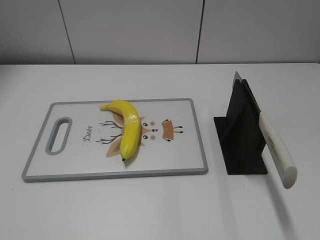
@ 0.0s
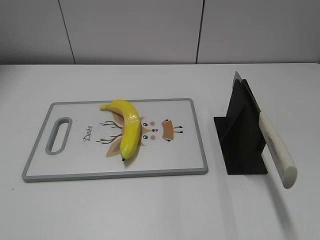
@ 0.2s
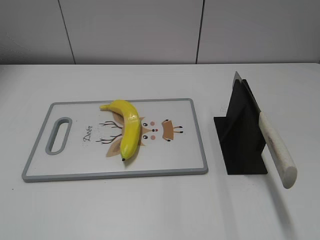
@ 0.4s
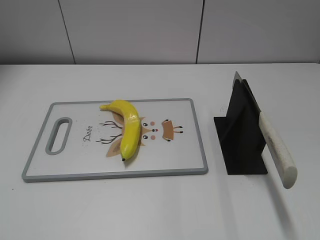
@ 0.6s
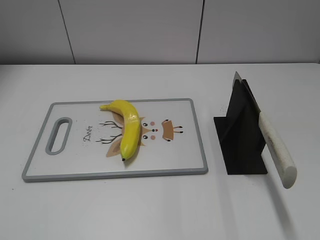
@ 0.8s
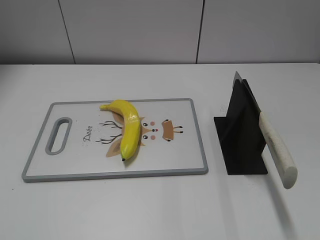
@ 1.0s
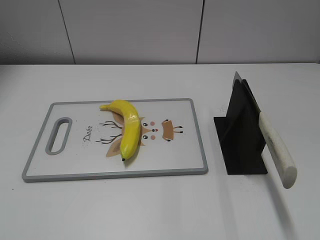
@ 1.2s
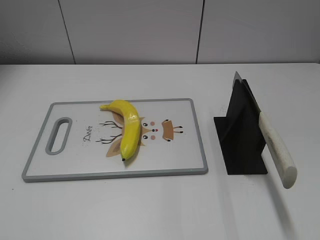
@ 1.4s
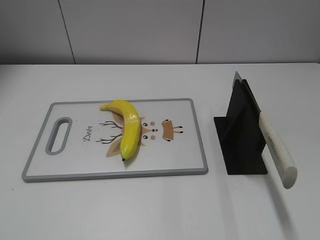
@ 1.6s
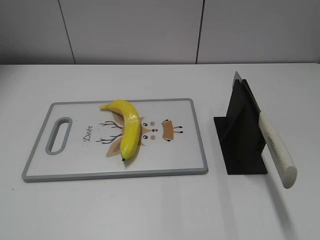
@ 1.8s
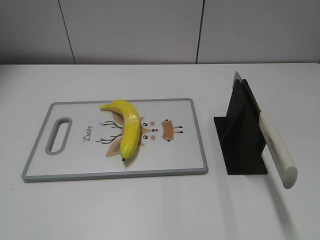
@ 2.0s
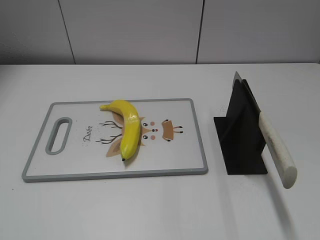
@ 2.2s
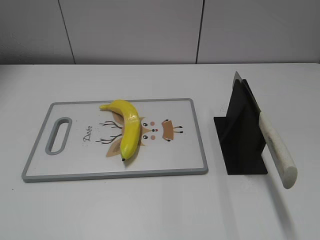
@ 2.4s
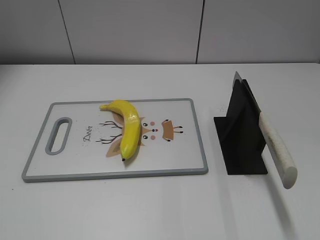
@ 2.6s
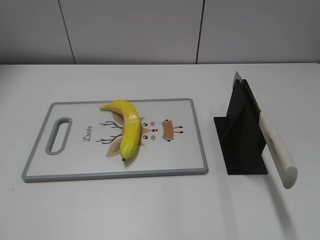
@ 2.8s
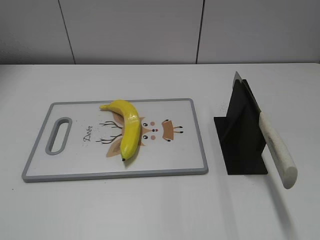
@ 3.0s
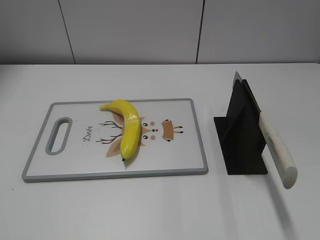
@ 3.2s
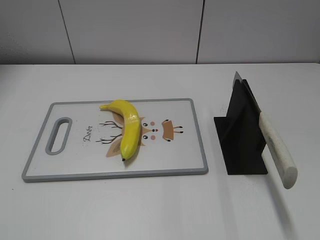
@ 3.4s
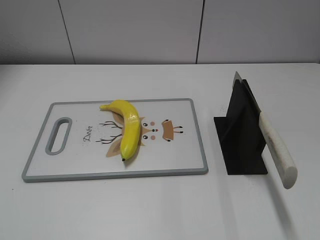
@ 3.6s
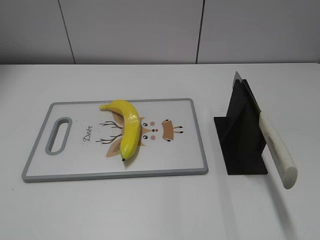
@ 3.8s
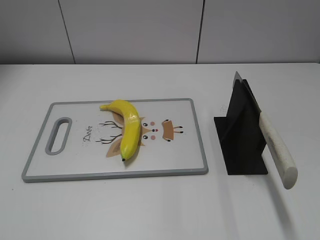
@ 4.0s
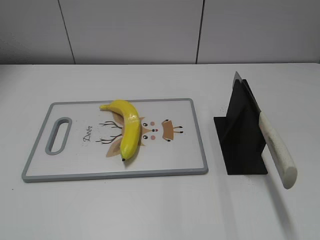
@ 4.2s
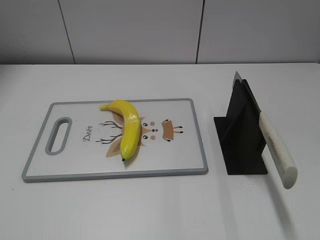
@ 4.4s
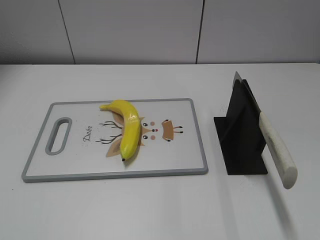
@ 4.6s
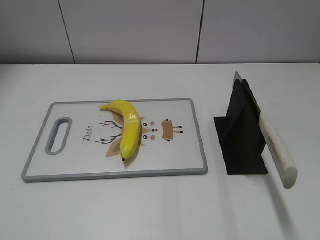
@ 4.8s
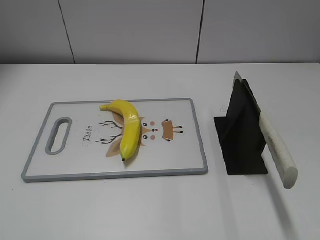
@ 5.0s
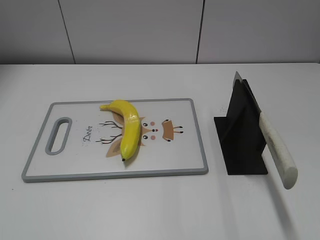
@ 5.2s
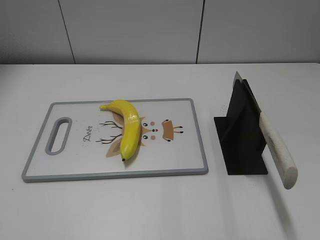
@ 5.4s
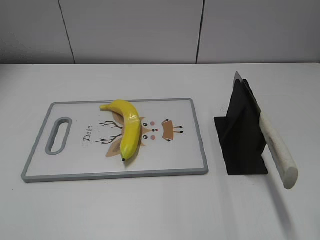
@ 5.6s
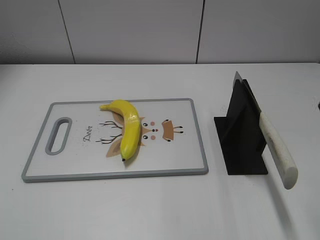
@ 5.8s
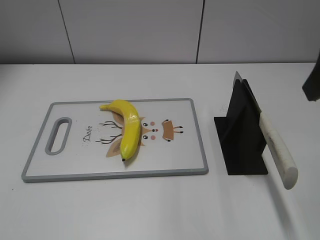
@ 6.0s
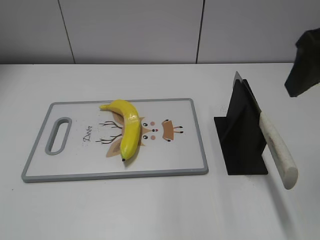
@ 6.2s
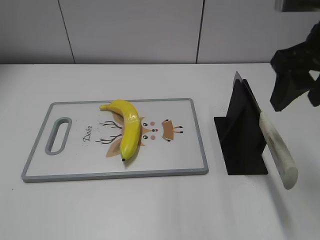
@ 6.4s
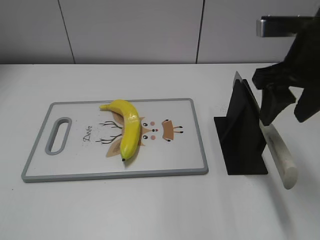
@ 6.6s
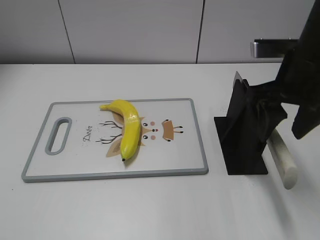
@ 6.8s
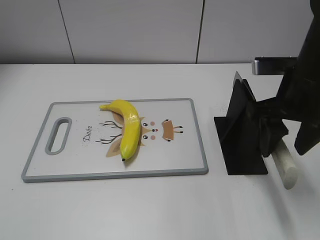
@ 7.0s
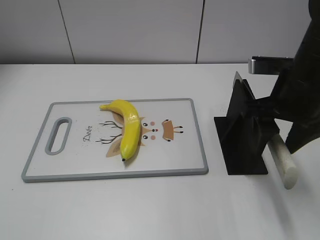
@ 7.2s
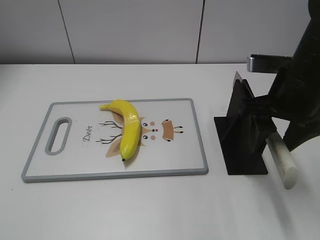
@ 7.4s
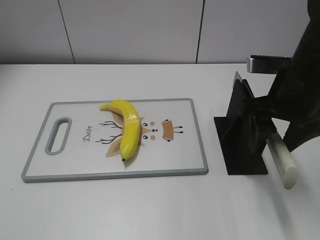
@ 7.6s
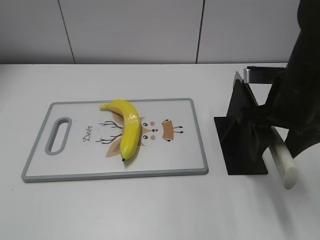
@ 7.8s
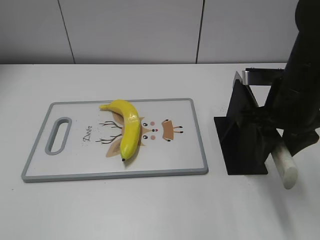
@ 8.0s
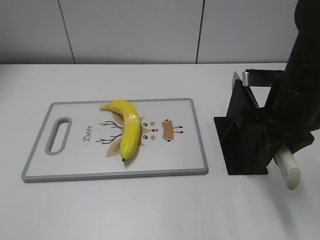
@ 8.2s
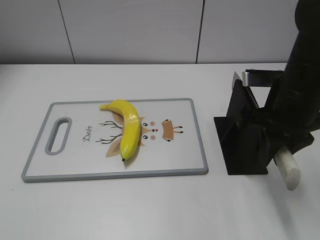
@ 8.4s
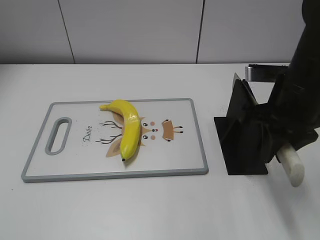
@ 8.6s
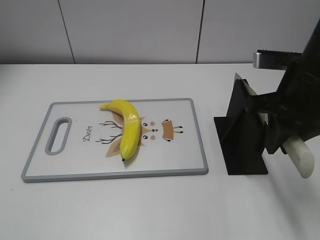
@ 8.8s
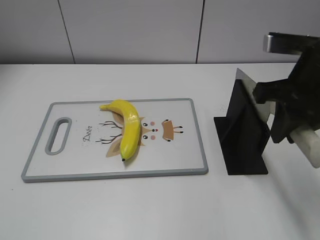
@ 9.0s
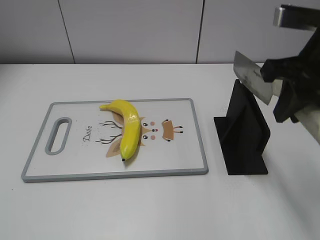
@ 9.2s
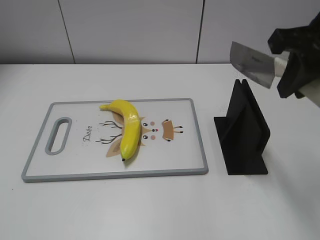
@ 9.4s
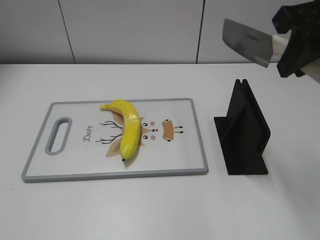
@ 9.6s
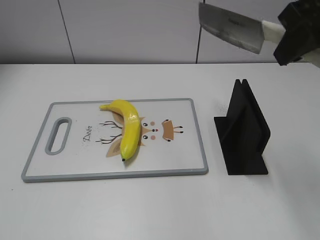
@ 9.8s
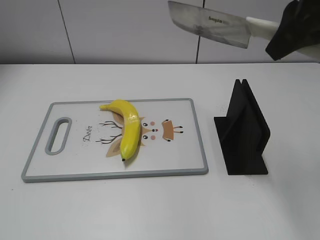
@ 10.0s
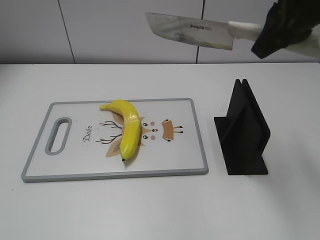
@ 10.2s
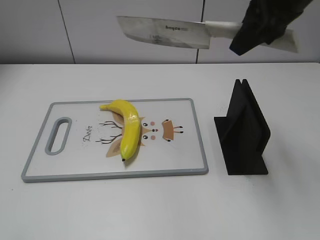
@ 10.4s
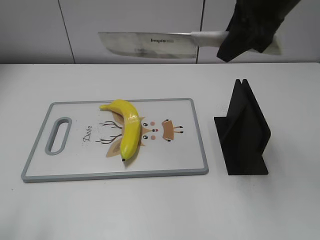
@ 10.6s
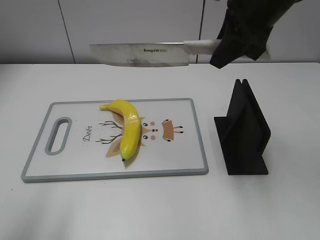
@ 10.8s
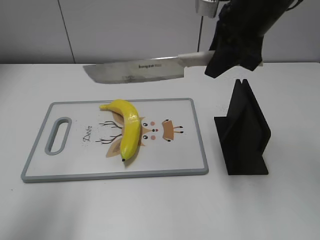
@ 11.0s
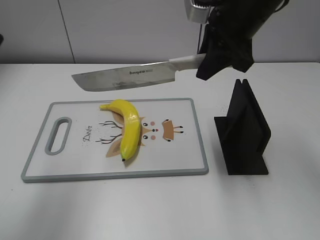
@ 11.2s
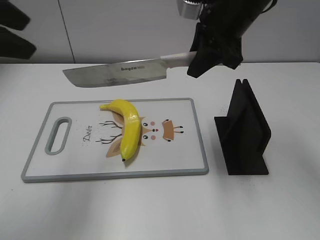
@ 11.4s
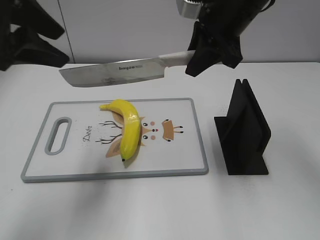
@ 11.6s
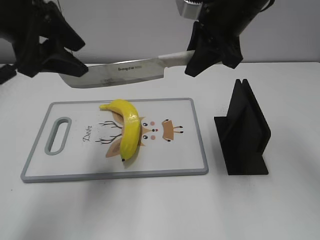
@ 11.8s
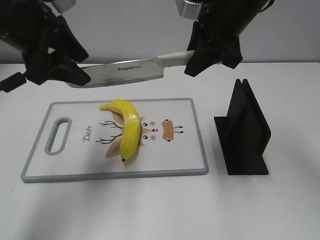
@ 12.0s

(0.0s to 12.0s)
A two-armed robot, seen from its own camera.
Task of the whole recording: cut plastic banana.
Step, 0.0s - 10.4s: Grab the knife handle with your right hand.
4.4s - 6.0s: The right gripper heads forward and to the left, covering about 20 cm.
6.0s - 7.6s: The right gripper travels downward and forward by approximately 15 cm.
7.6s - 9.0s: The right gripper ends up about 5 cm from where it was, and closes up.
9.0s - 10.4s: The right gripper heads upward and forward, covering roughly 10 cm. Meanwhile the left gripper shifts approximately 5 cm forward.
10.4s - 12.0s: The left gripper travels forward and to the right by approximately 30 cm. The right gripper heads downward, covering some 5 cm.

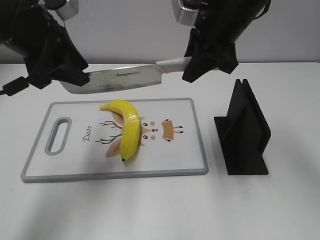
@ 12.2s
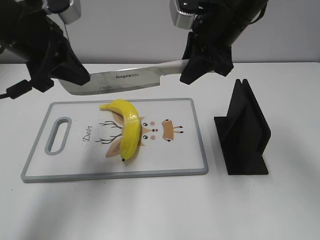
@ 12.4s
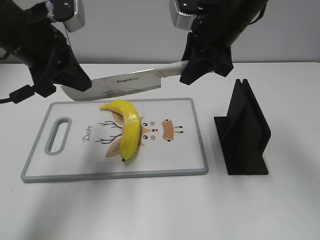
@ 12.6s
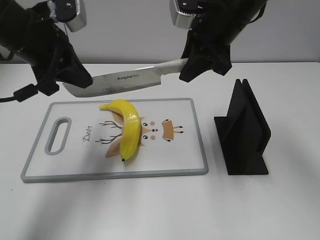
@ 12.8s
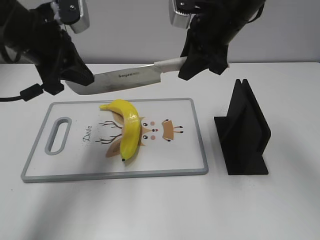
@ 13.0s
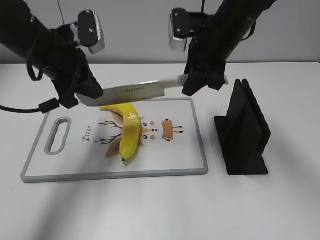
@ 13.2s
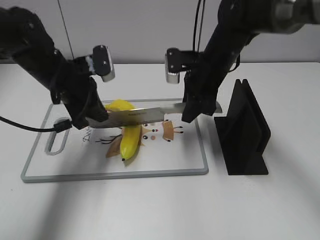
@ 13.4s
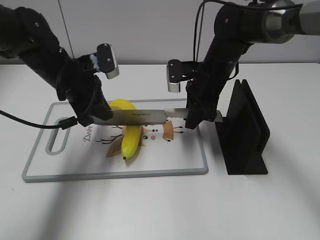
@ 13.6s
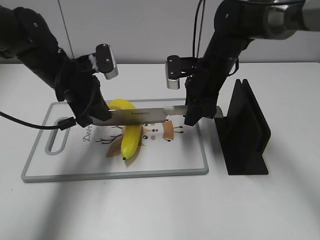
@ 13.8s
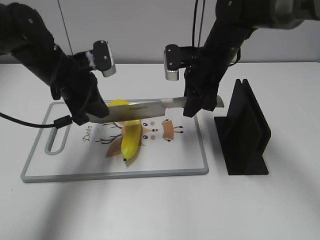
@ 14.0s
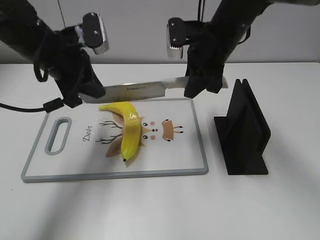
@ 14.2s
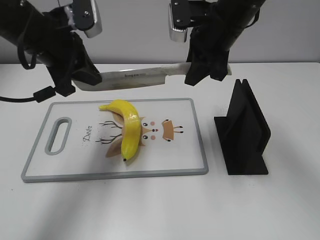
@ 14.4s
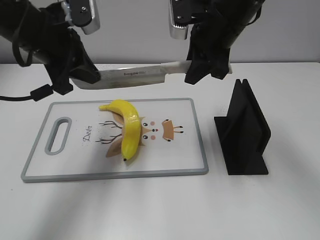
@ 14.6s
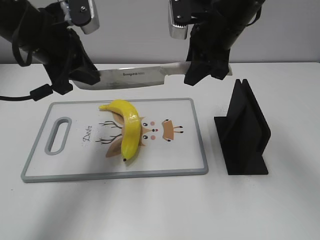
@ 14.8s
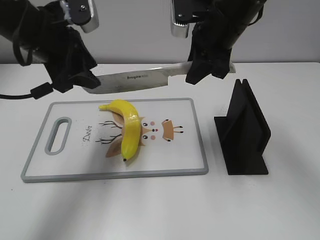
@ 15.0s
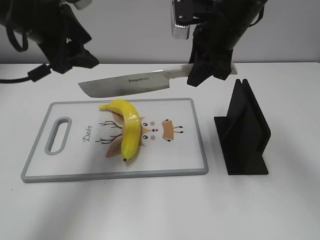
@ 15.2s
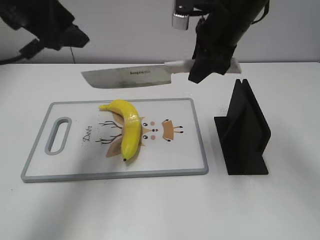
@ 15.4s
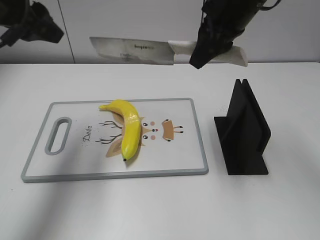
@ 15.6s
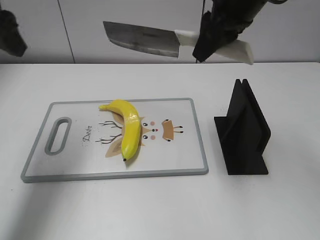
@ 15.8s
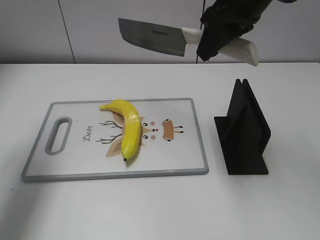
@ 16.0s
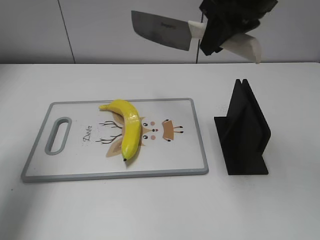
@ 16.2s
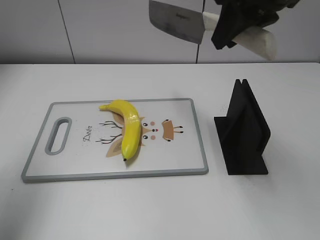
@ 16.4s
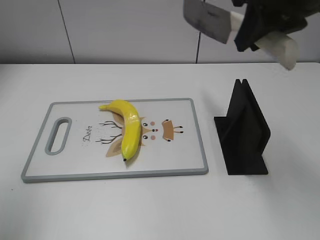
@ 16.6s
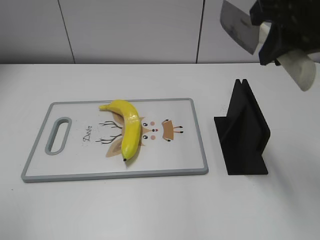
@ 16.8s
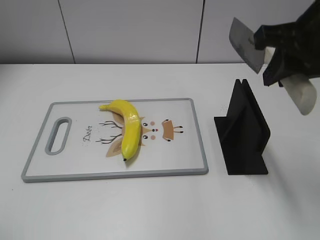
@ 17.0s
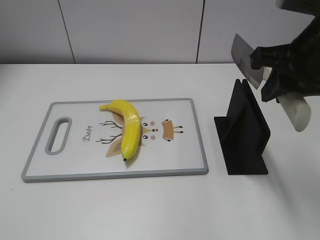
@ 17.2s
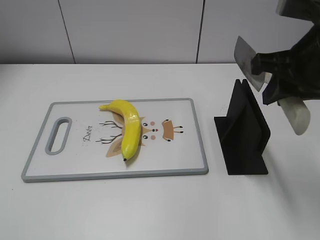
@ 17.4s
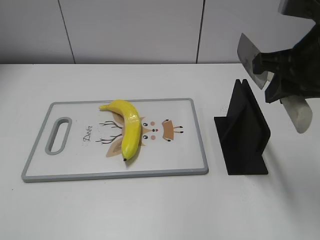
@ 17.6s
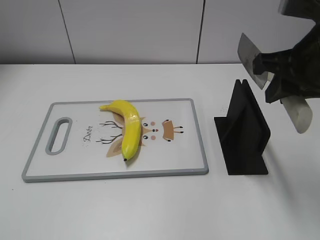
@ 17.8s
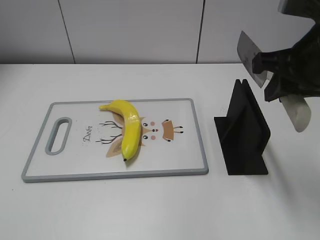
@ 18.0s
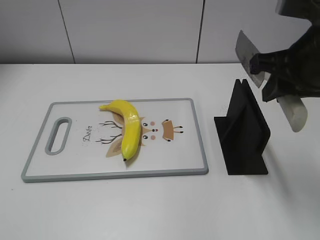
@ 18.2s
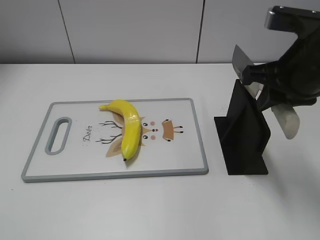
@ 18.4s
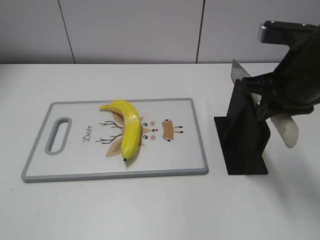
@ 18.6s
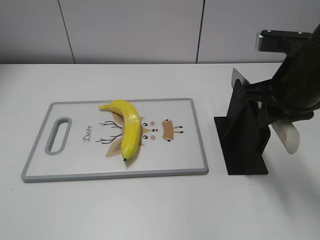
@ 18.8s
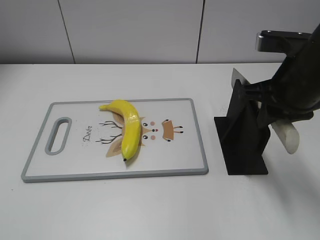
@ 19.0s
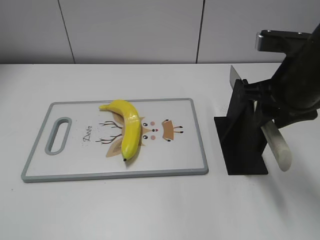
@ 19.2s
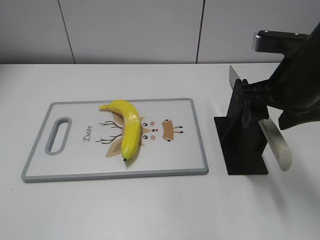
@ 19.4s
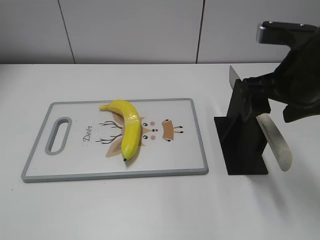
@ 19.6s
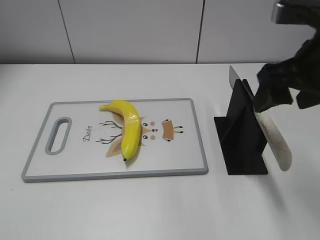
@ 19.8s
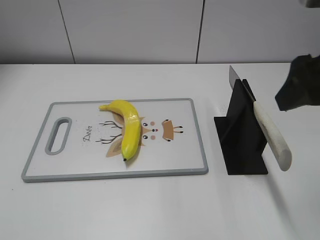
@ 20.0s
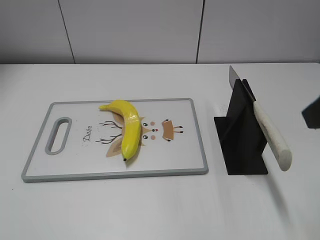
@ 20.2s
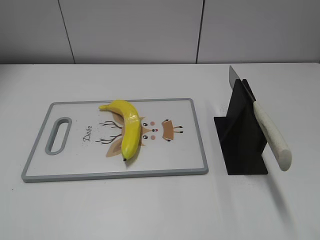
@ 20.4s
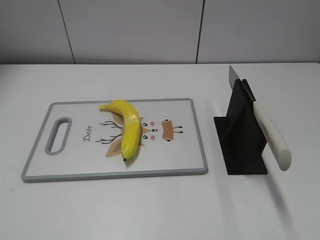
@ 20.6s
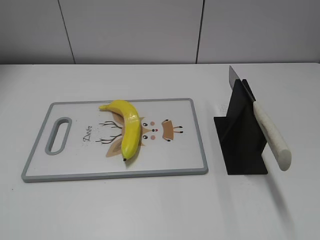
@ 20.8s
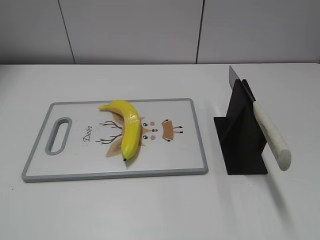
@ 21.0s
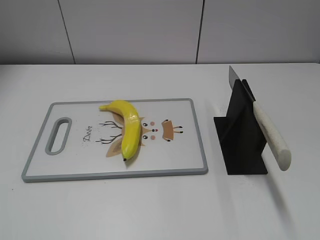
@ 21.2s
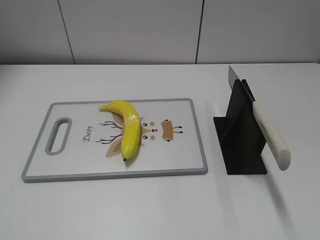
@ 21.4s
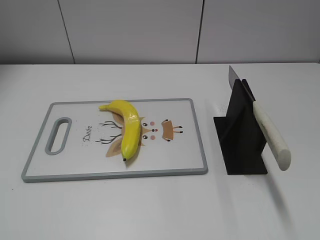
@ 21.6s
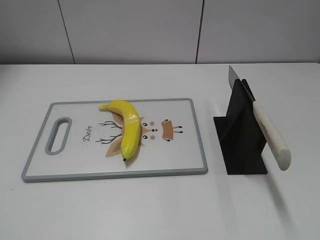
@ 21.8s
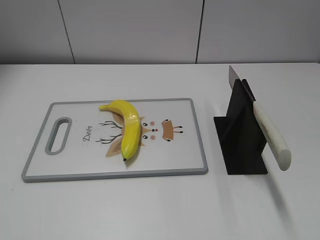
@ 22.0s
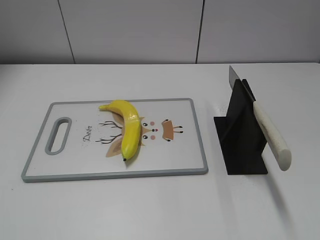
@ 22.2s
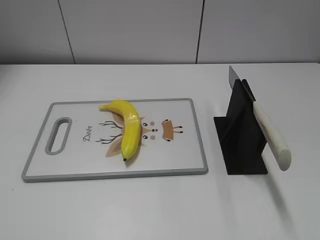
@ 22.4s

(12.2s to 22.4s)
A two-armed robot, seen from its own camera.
Task of the whole recording: cut plastic banana.
Step, 12.2s - 15.6s: Lift the knife with your right hand.
Step, 15.8s - 17.2s: Cut the banana with your right hand.
Step, 18.4s - 22.4s: Place the knife on the storage rack with your right hand.
12.2s - 13.6s: Both grippers travel together downward, approximately 15 cm. The left gripper closes its fingers.
13.6s - 15.2s: The grippers both shift upward by roughly 15 cm. The left gripper opens its fingers.
15.2s - 16.6s: The right gripper shifts approximately 15 cm upward, backward and to the right. The left gripper is displaced backward and to the left by approximately 20 cm.
16.6s - 18.0s: The left gripper shifts approximately 20 cm backward and downward, while the right gripper is displaced downward by about 5 cm.
18.0s - 19.4s: The right gripper opens.
19.4s - 21.0s: The right gripper goes about 25 cm backward and to the right.
